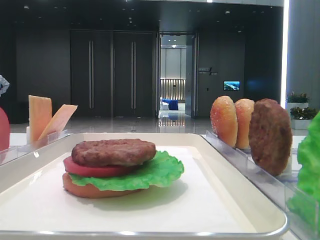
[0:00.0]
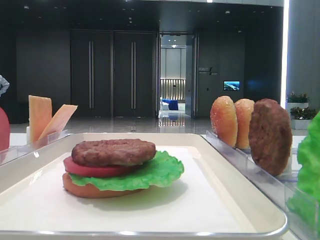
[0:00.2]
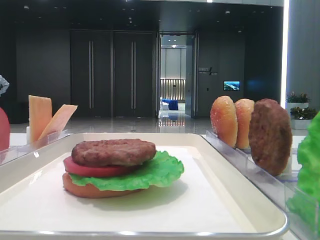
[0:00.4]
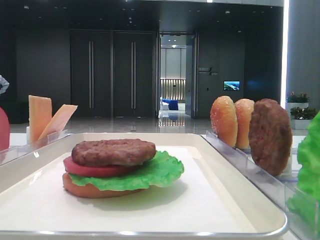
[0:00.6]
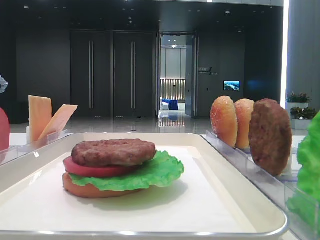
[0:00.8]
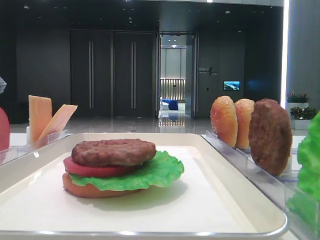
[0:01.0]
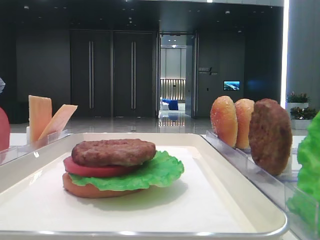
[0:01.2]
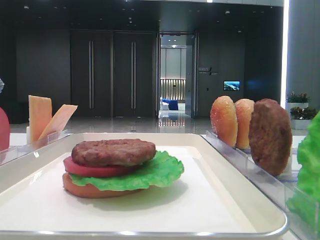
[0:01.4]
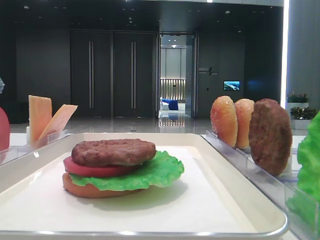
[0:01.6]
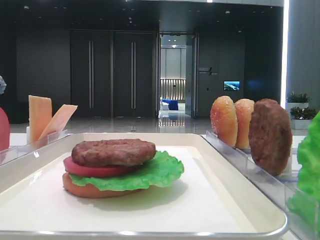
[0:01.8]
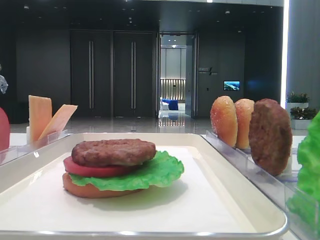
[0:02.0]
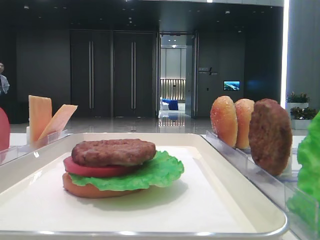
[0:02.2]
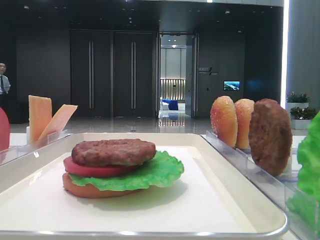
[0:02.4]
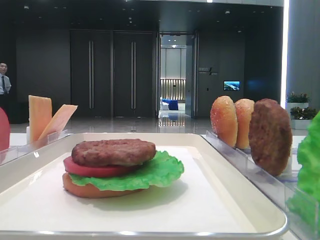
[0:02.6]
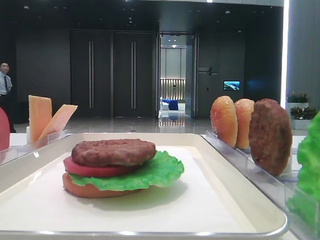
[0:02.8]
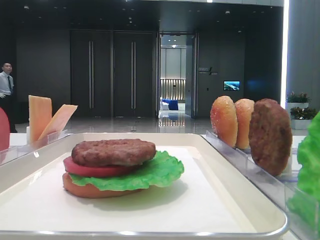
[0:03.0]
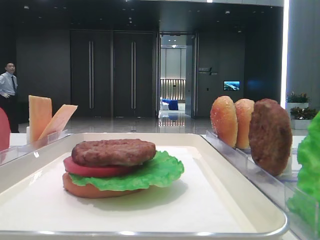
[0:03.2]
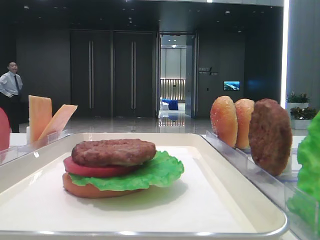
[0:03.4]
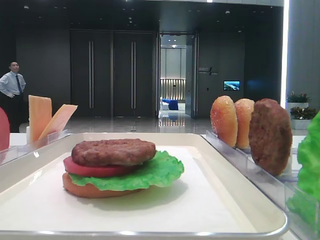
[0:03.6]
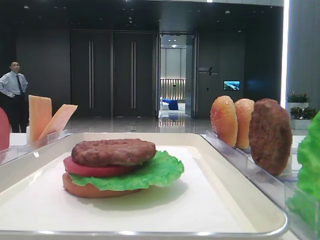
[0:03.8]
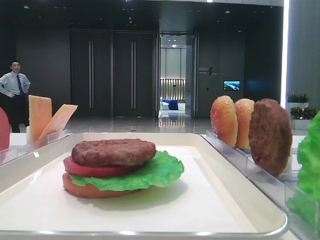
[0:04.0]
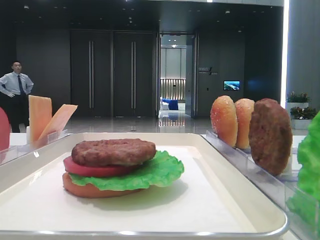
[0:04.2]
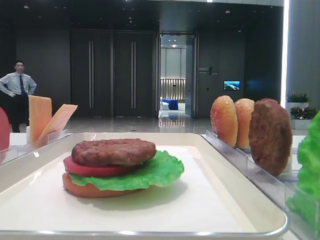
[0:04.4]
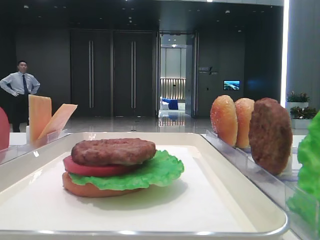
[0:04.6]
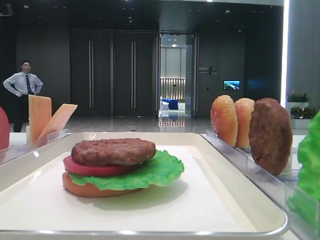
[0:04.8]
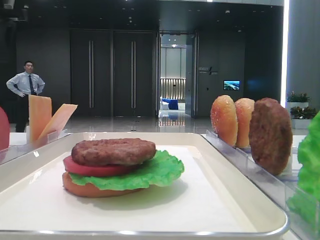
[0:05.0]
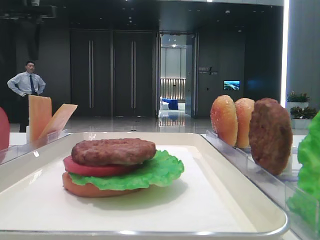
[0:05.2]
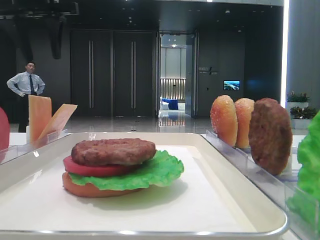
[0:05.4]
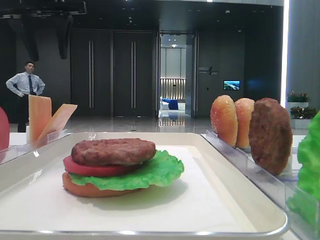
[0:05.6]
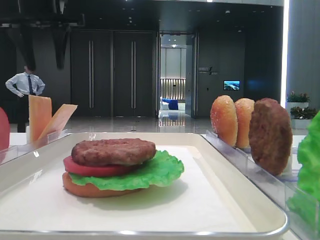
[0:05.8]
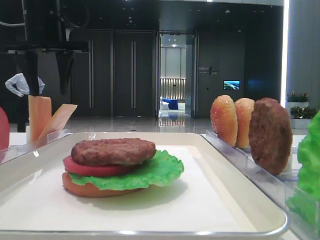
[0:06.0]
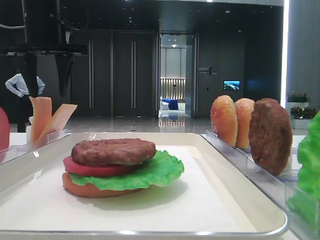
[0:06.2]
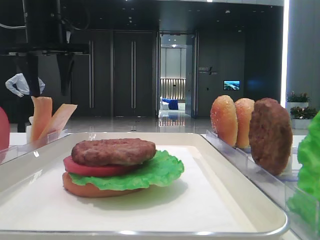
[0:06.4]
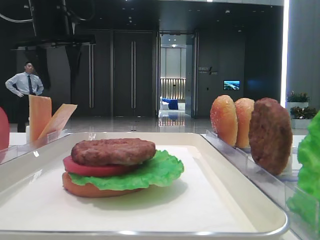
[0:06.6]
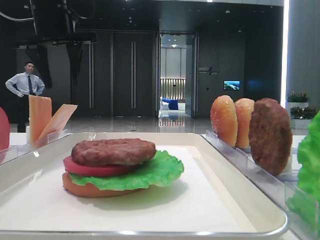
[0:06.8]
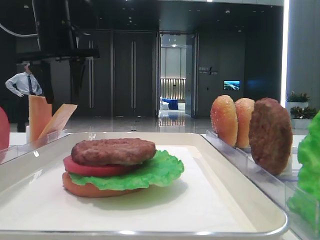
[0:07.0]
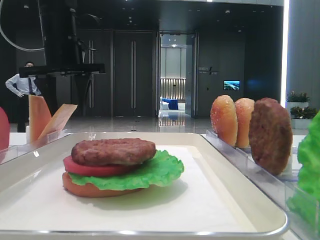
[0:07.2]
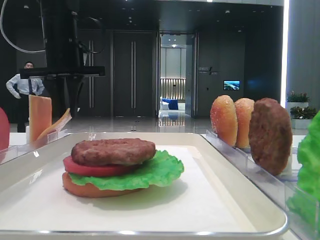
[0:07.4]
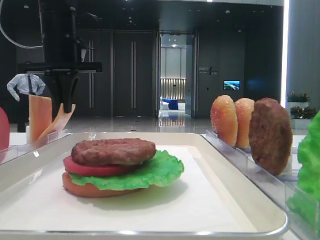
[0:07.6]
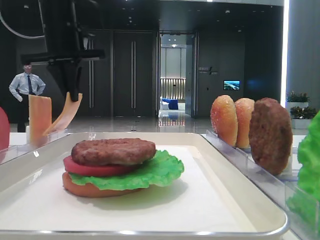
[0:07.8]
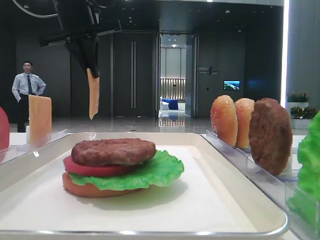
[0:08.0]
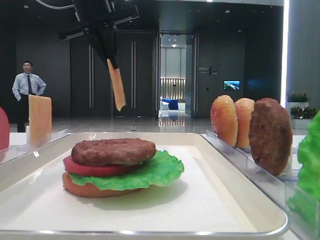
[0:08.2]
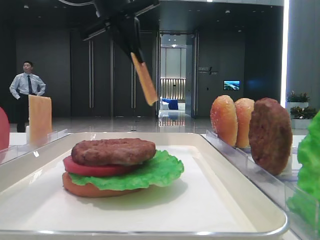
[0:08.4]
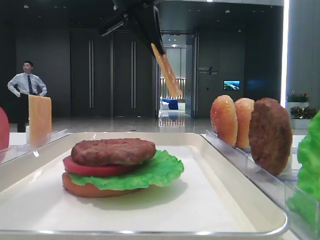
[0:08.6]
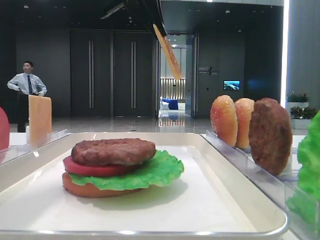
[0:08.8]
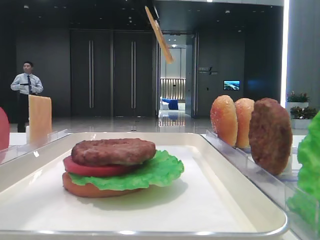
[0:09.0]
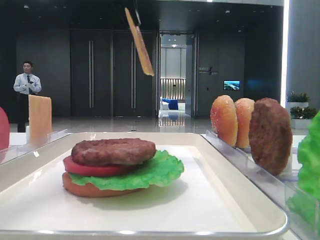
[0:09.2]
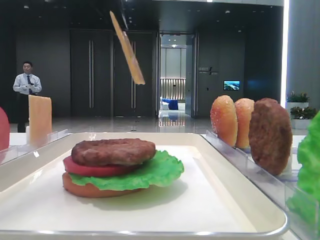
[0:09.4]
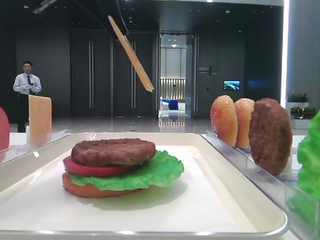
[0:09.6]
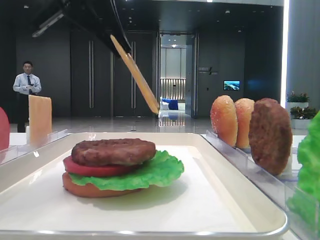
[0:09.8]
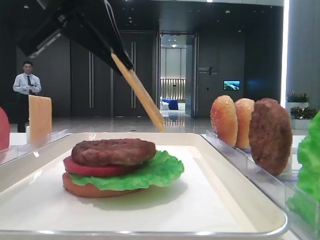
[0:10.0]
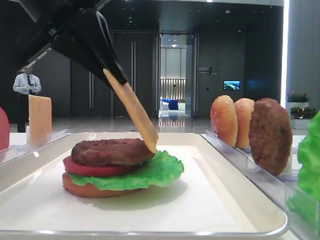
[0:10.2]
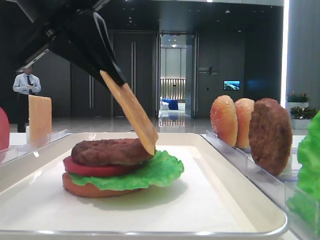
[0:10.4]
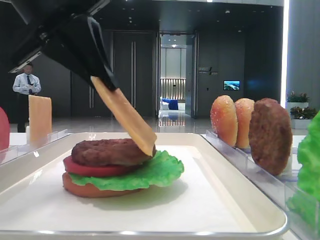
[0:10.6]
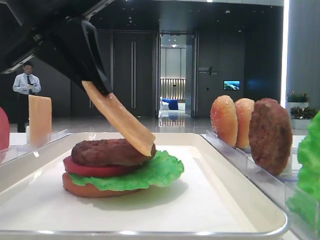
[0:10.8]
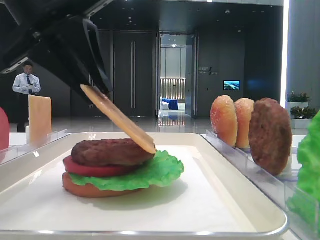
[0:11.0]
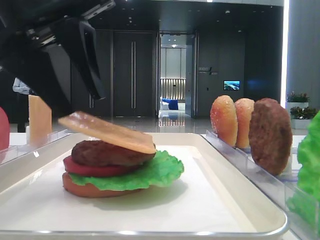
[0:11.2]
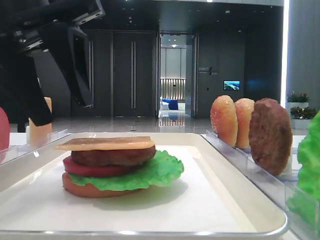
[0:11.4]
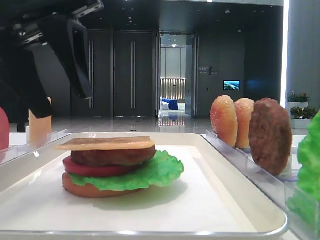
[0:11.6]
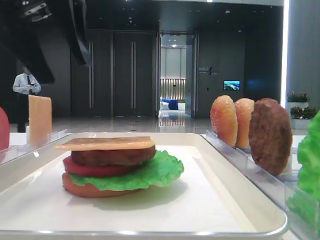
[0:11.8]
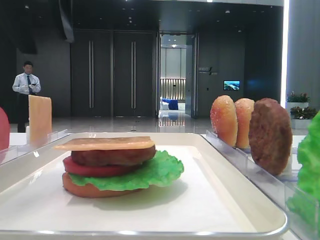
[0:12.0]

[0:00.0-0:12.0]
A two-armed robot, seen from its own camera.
Step, 0:00.0 to 0:07.6: Pick up the cheese slice with the left hand.
Step, 0:07.8 to 0:11.0: Place the cheese slice on the patty with the left hand.
0:01.6 to 0:03.0: Both grippers stay about where they are.
0:03.0 to 0:04.4: The left gripper heads forward, covering roughly 25 cm, and opens up.
0:04.4 to 0:06.0: The left gripper moves forward and to the right, approximately 25 cm.
0:06.0 to 0:07.6: The left gripper closes up.
0:07.6 to 0:09.0: The left gripper is displaced upward, to the right and backward by roughly 20 cm.
0:09.0 to 0:10.4: The left gripper shifts roughly 20 cm backward, downward and to the left.
0:10.4 to 0:12.0: The left gripper shifts some 5 cm upward, and opens its fingers.

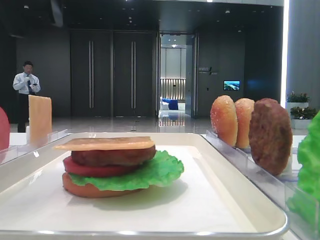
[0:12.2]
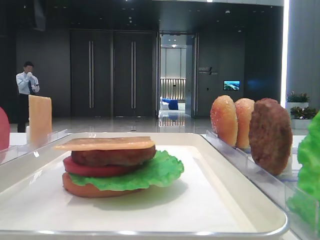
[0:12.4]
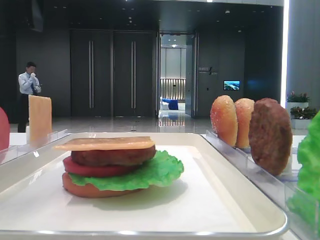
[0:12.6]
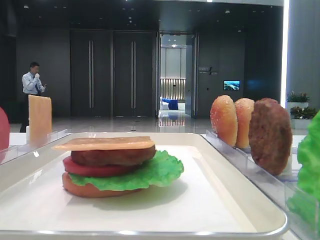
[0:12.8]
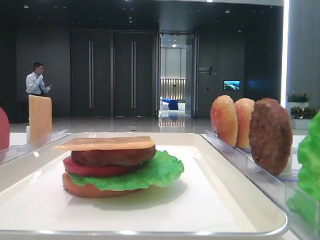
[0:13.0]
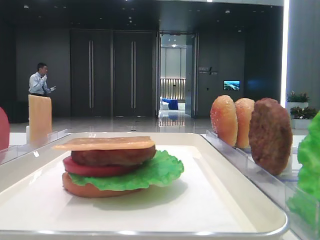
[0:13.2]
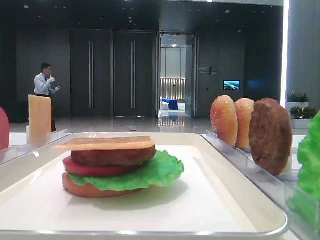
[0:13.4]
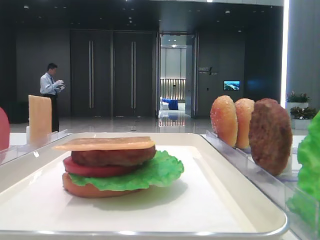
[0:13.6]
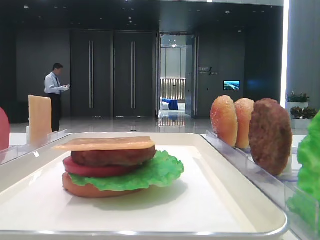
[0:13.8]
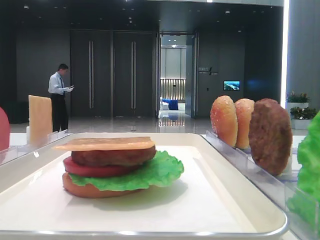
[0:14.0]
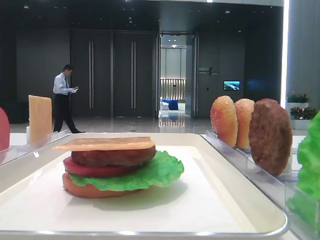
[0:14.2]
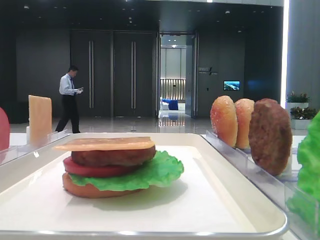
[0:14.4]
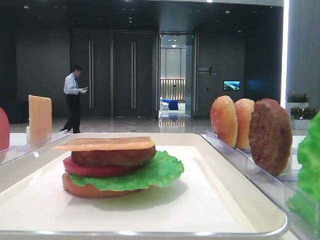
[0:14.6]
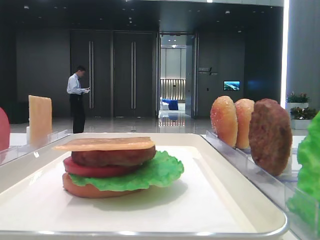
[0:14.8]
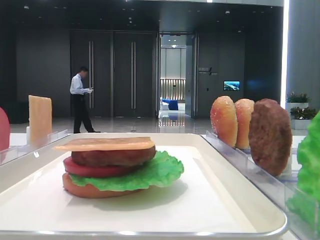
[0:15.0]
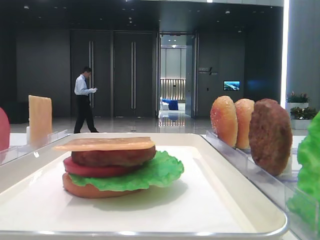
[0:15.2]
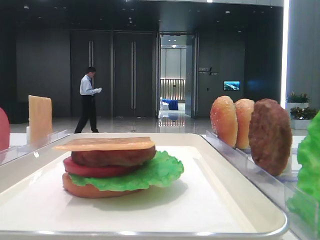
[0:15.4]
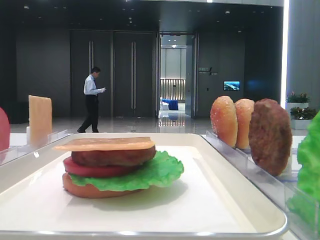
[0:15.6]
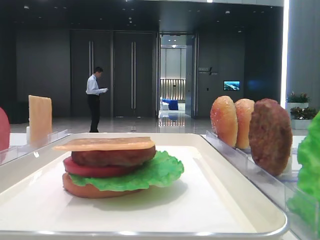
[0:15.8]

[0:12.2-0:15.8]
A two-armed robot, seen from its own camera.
0:12.2 to 0:14.0: The left gripper goes roughly 25 cm backward and to the left.
0:14.0 to 0:15.8: The left gripper is displaced backward by approximately 10 cm.

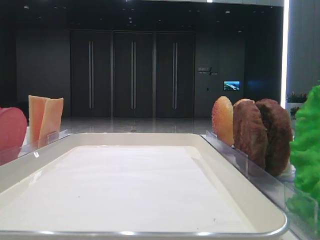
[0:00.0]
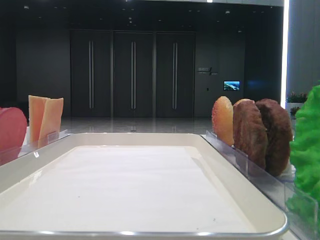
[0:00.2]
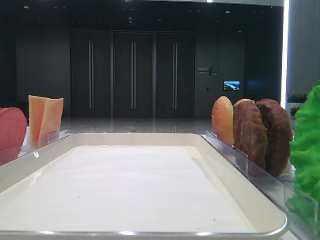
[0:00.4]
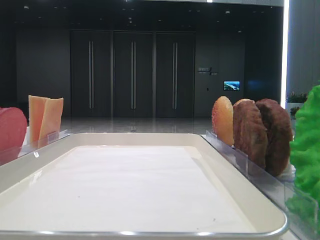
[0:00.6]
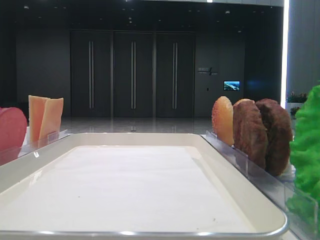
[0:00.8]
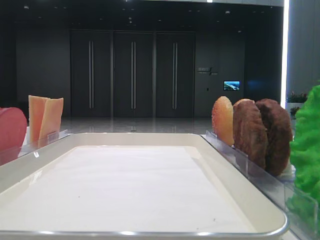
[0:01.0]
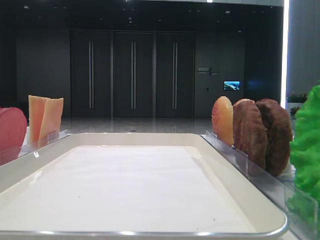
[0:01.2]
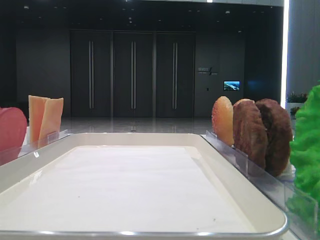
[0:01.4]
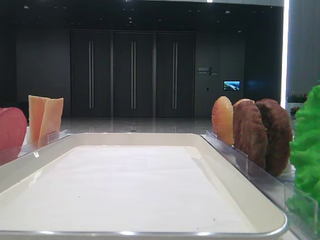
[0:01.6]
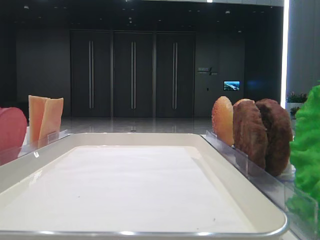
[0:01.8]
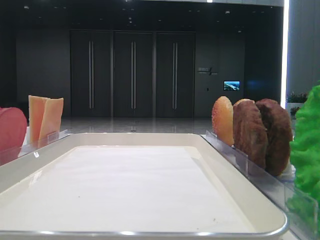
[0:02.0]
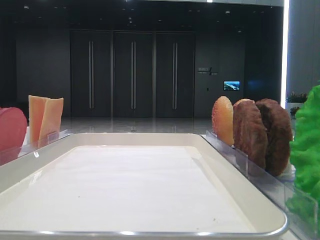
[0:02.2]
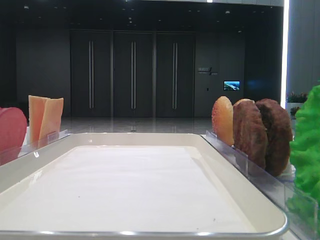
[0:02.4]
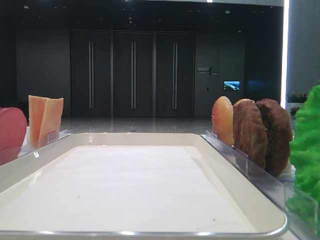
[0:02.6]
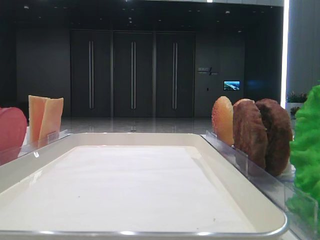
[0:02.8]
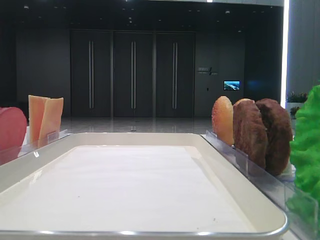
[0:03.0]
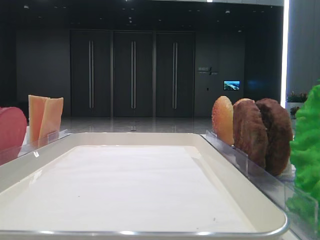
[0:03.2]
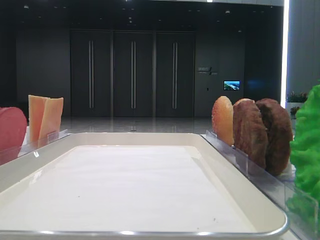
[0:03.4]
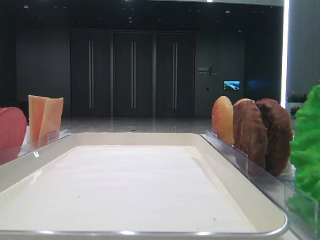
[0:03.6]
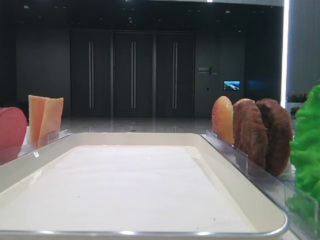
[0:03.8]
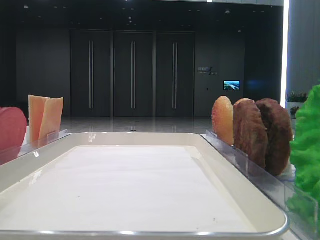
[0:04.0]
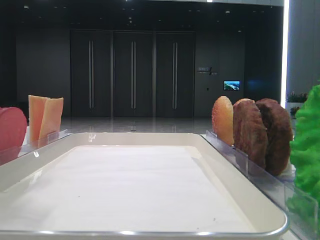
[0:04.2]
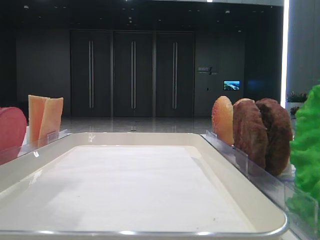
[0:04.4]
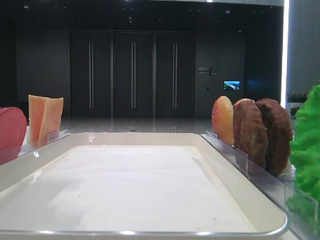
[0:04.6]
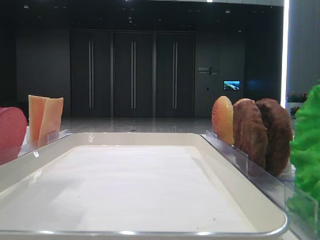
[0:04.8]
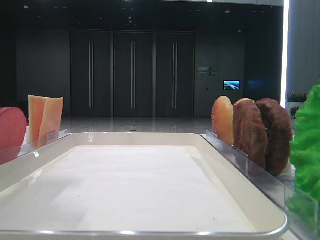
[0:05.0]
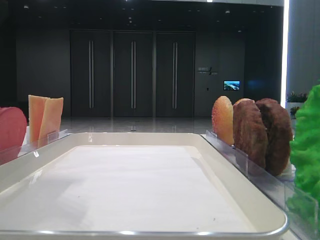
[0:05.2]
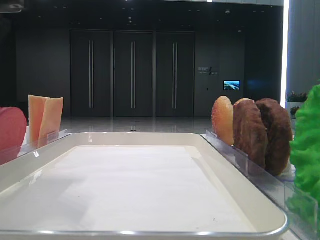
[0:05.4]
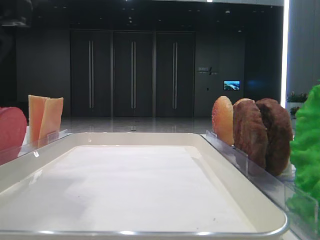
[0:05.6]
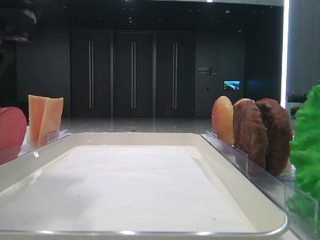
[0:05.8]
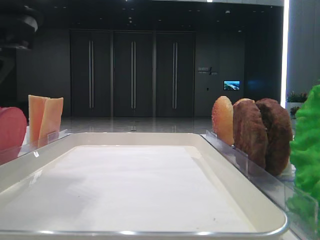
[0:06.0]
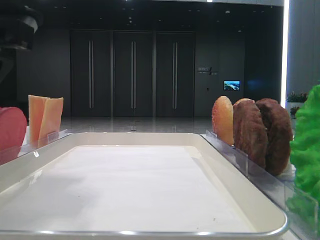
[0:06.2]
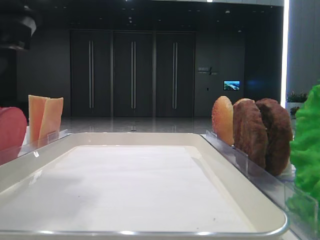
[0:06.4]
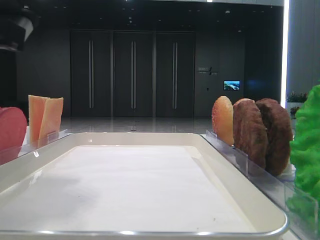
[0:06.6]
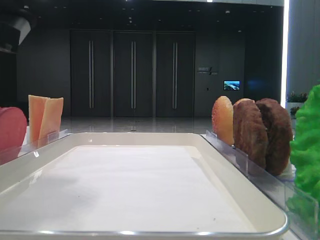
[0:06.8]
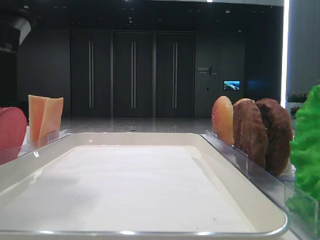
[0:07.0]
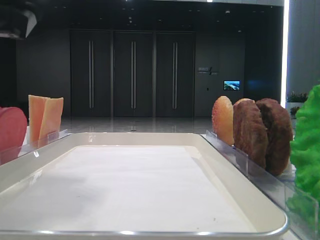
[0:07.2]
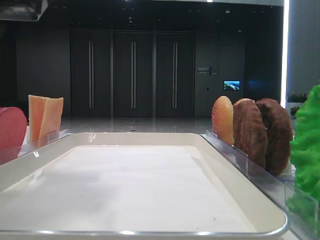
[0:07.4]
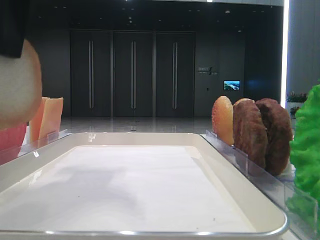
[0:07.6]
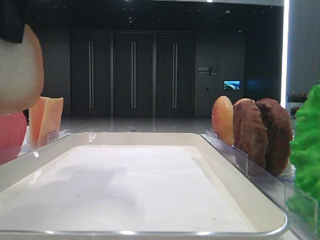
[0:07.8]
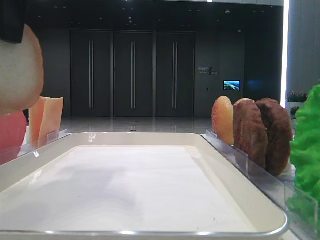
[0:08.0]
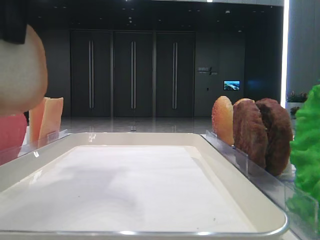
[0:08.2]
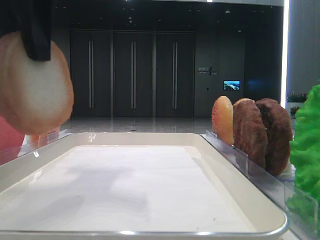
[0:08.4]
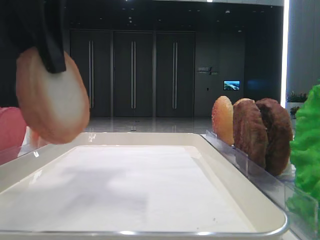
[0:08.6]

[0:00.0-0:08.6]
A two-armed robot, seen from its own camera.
Step, 0:00.0 to 0:06.8: Pick up the bottom bread with the left hand.
0:02.8 to 0:04.4: The left gripper is displaced to the right, forward and downward by some 20 cm.
0:04.4 to 0:05.8: The left gripper shifts roughly 5 cm downward.
